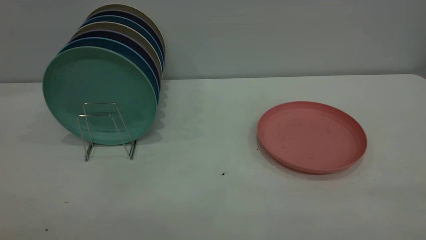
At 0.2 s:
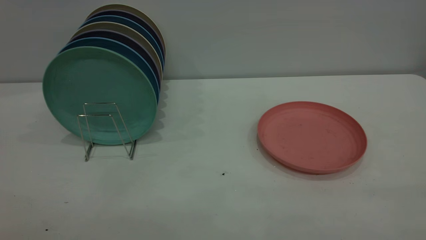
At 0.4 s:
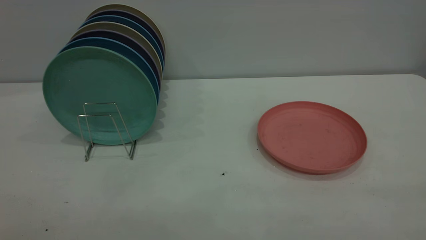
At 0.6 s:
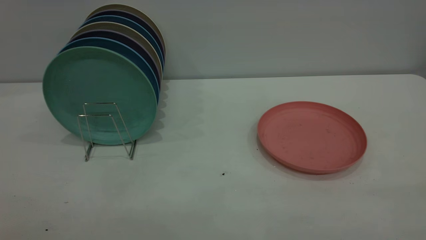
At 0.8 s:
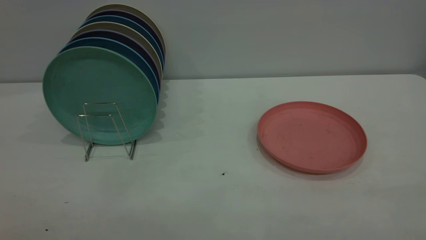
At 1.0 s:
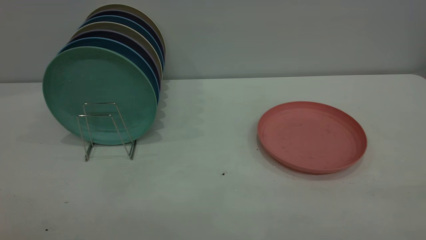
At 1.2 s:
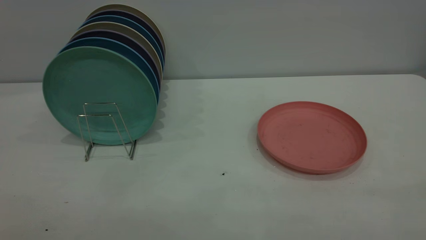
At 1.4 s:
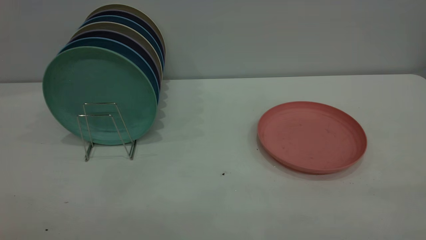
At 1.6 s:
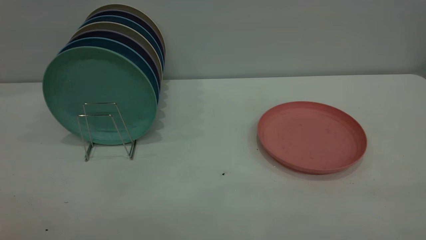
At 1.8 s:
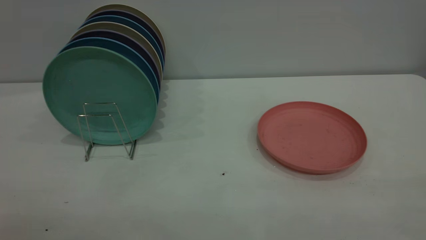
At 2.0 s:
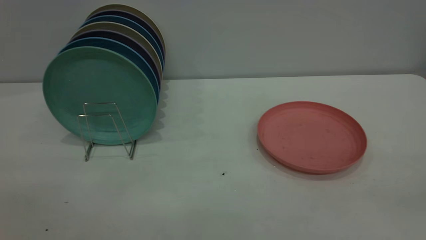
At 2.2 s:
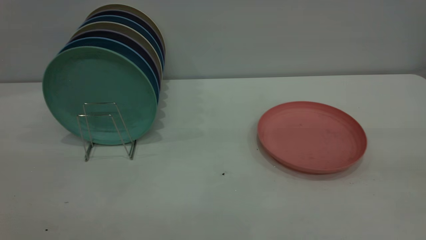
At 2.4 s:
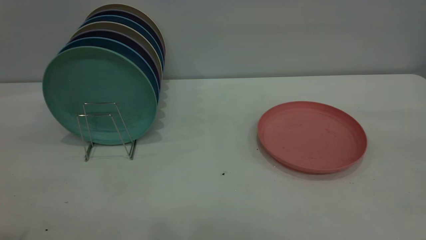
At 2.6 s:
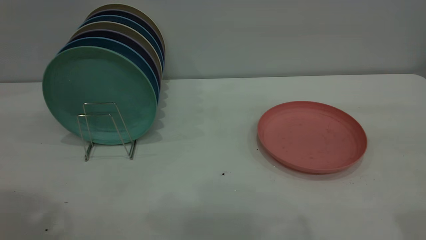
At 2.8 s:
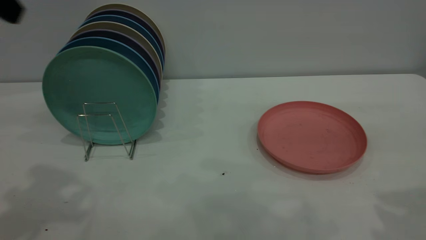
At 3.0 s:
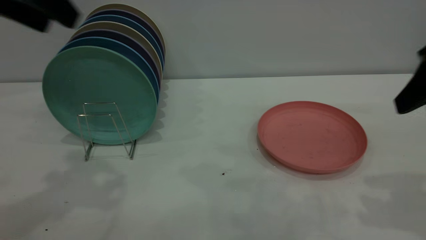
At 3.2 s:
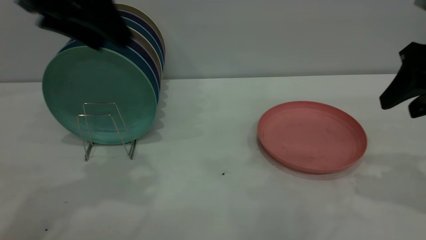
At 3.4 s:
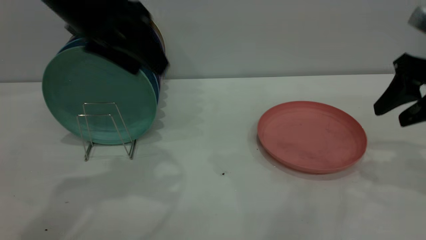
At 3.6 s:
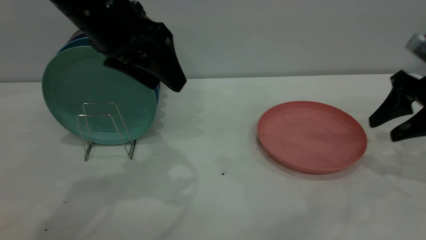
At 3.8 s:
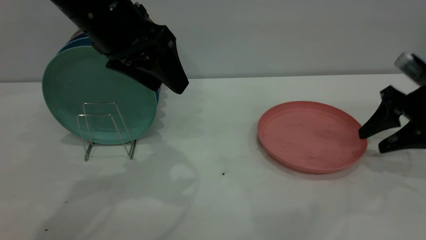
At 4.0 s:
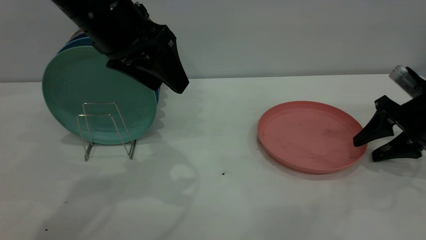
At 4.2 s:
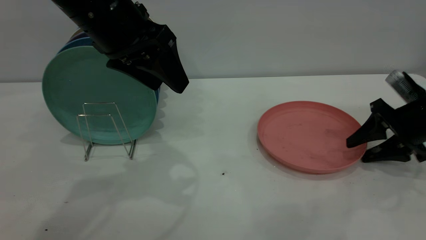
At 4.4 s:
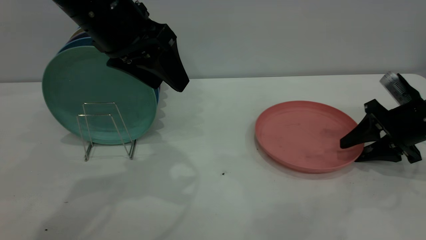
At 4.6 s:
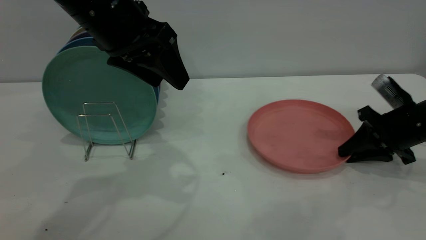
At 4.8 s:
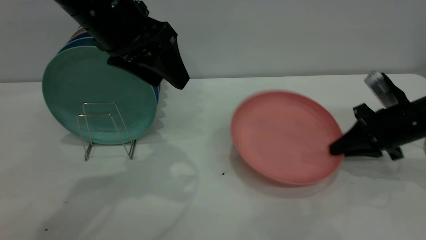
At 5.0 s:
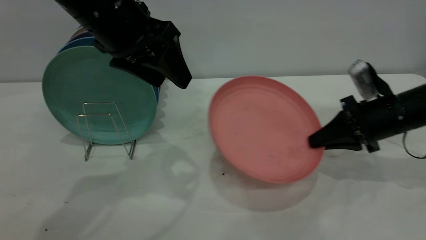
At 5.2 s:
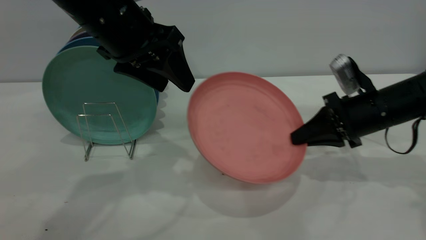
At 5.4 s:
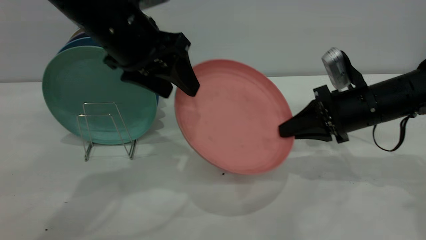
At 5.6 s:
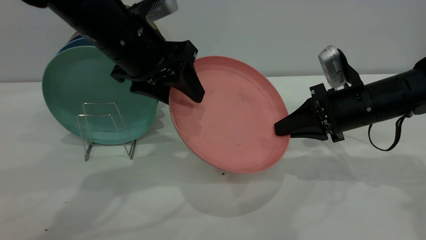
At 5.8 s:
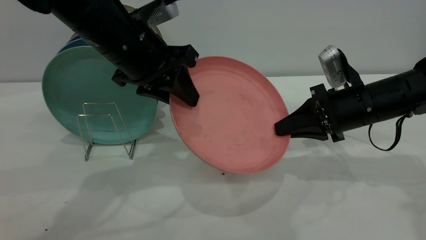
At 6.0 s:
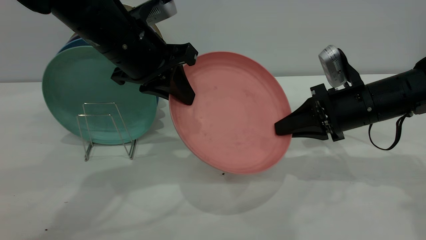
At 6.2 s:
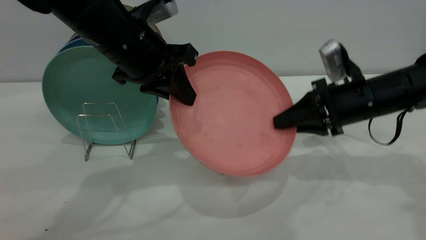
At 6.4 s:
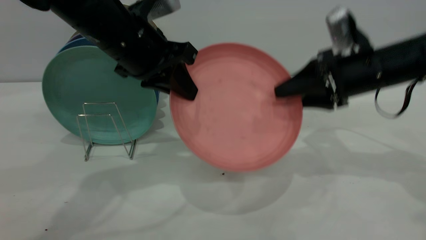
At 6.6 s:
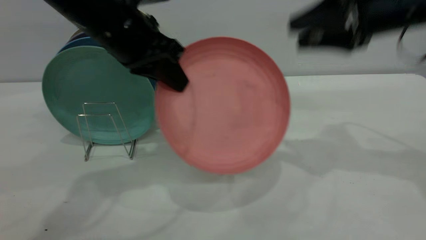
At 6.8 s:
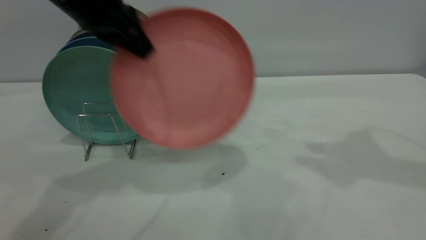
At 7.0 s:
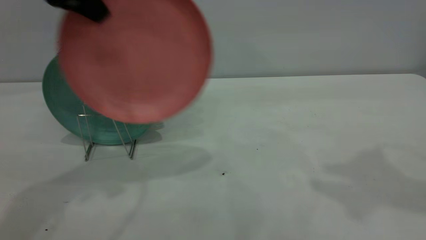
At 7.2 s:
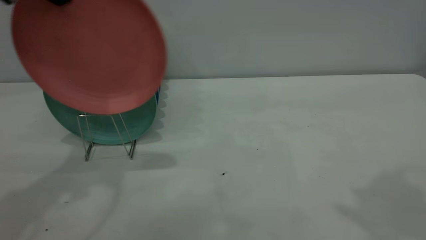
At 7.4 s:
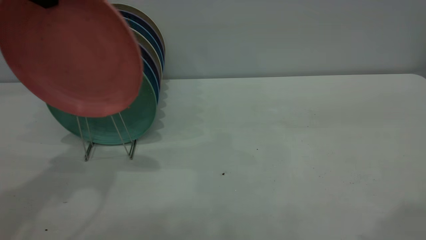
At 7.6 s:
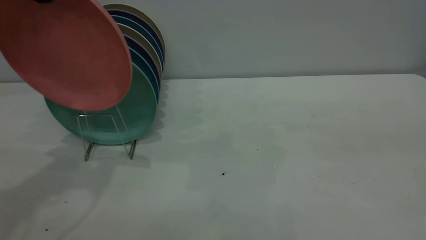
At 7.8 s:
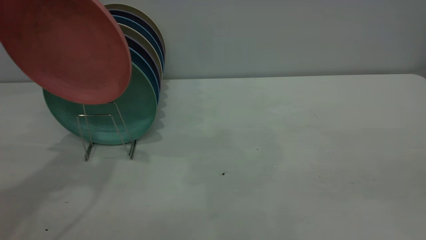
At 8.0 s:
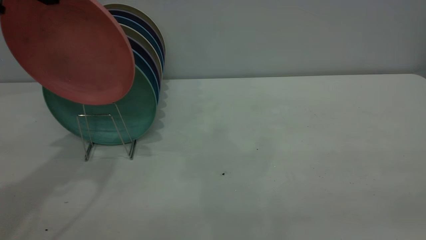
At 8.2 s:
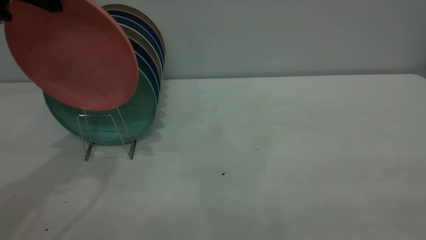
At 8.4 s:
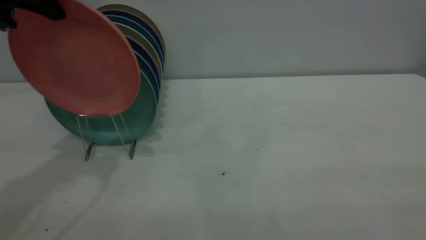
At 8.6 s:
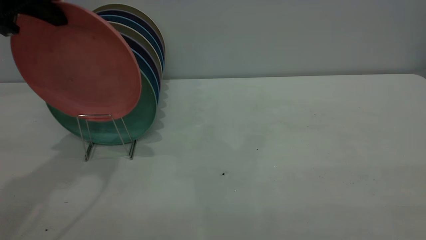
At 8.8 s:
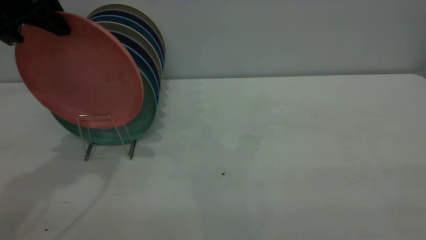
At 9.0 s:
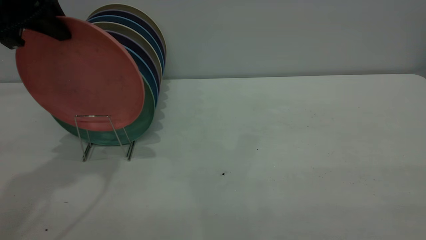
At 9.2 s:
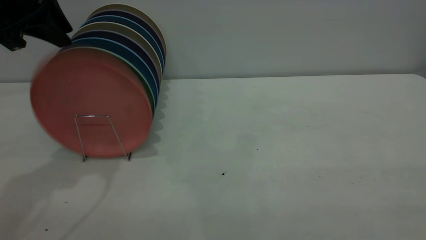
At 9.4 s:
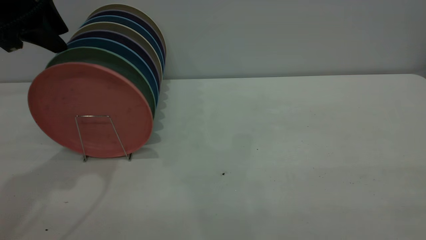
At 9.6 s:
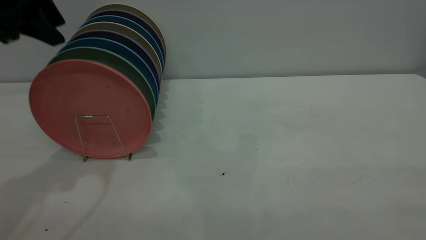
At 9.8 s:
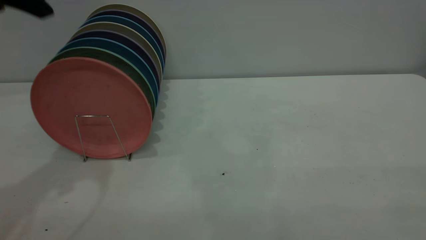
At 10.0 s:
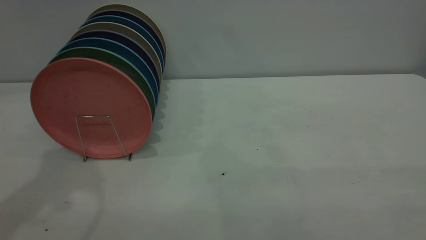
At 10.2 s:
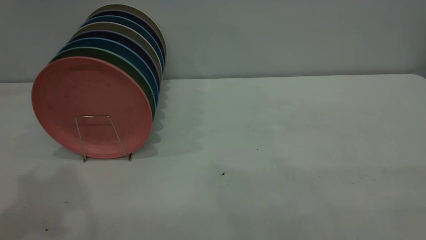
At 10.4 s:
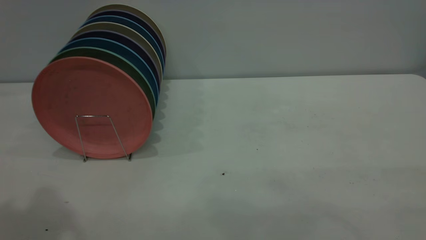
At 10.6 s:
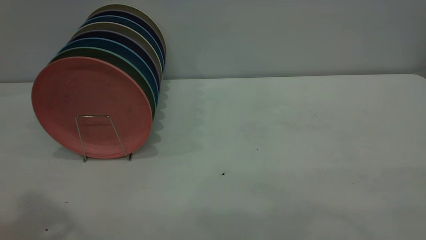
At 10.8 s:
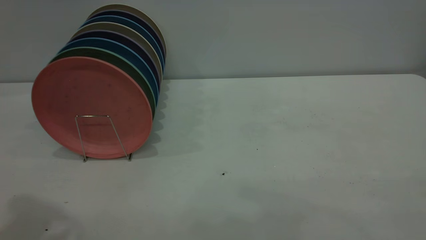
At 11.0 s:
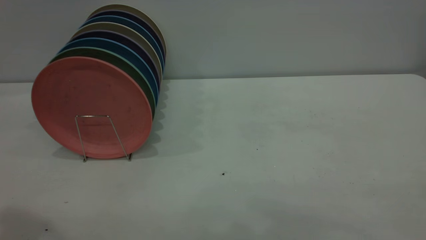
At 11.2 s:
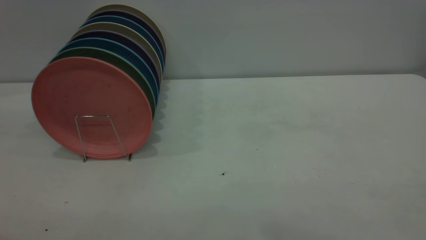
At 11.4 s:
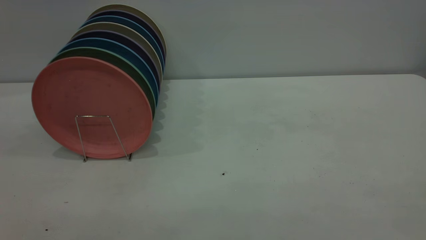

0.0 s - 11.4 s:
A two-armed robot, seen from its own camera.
Task of the whole recording: the right gripper grasp the pink plate, the right gripper pass the pink plate to the left gripper, and the left gripper place the pink plate on the plate rack.
Step, 0.0 s - 4.6 s: Pick up the plate with the right gripper.
Step, 5.0 s - 6.6 s: Pass the plate from the right gripper to the left gripper.
Step, 6.8 s - 9.8 s: Place the plate on the shelf.
0.0 s - 1.4 s: The two grippers keep their place.
2.8 s - 4.2 s: The left gripper shifts some 15 cm to the right, downward and forward. The right gripper goes about 25 cm downward and forward.
4.2 s - 5.6 s: The right gripper shifts roughly 10 cm to the left, and closes.
5.6 s - 7.2 s: The left gripper shifts about 20 cm upward and to the left, and closes; the right gripper travels upward and backward by roughly 35 cm, and opens.
7.2 s - 8.6 s: The left gripper changes place by some 5 cm, while the right gripper goes about 25 cm backward and downward.
8.6 s - 10.0 s: The left gripper shifts approximately 10 cm upward and backward, and opens.

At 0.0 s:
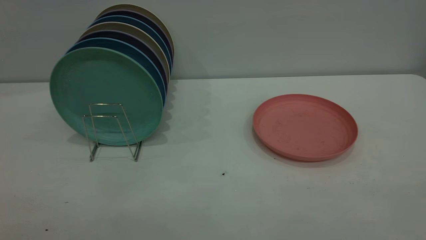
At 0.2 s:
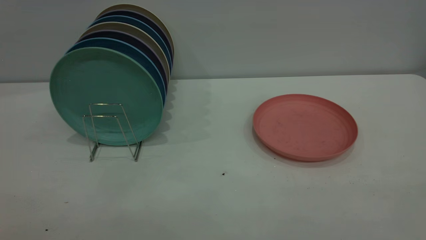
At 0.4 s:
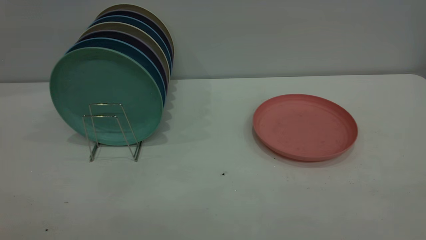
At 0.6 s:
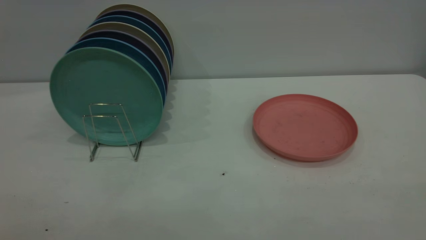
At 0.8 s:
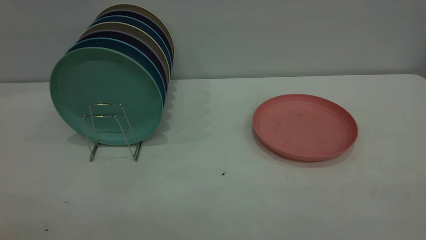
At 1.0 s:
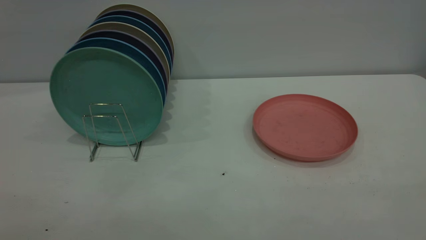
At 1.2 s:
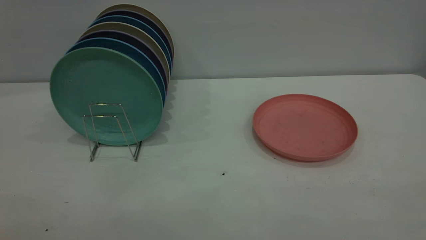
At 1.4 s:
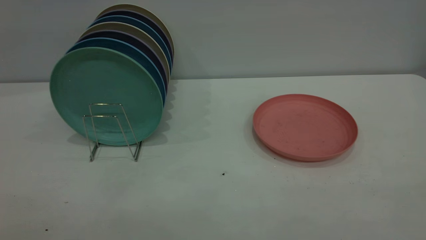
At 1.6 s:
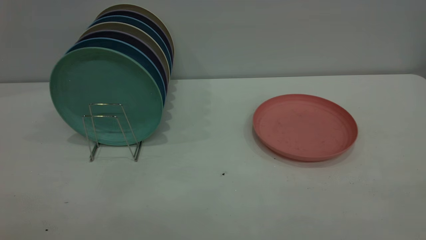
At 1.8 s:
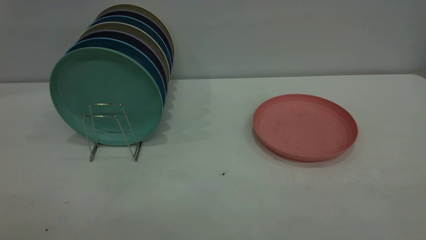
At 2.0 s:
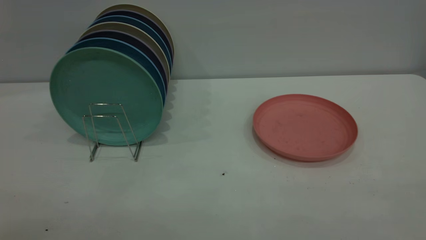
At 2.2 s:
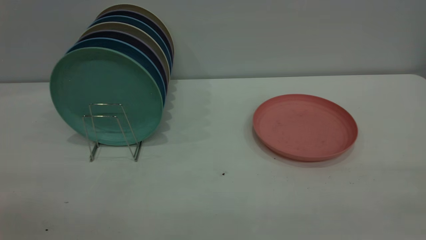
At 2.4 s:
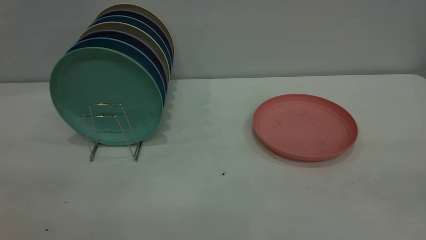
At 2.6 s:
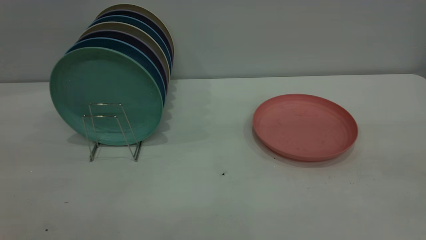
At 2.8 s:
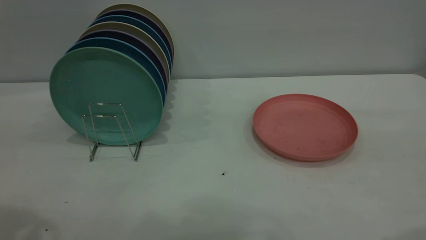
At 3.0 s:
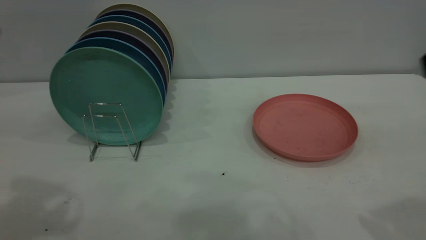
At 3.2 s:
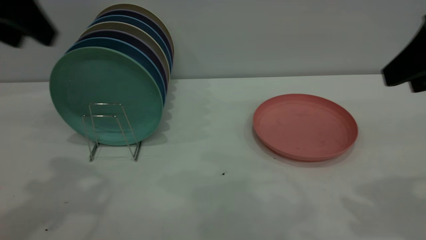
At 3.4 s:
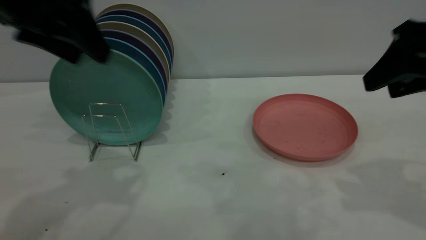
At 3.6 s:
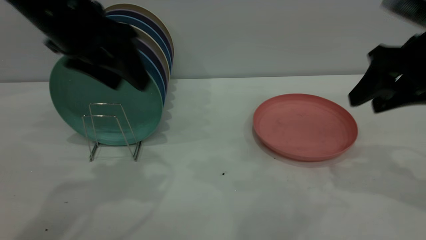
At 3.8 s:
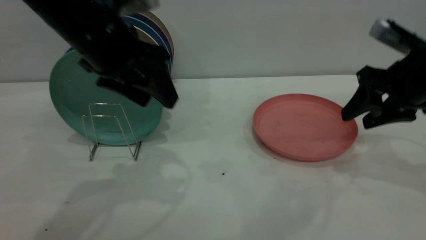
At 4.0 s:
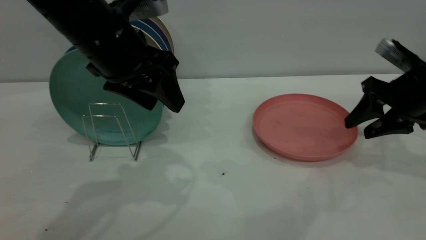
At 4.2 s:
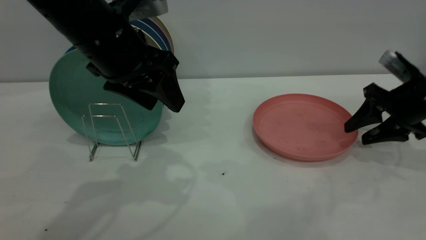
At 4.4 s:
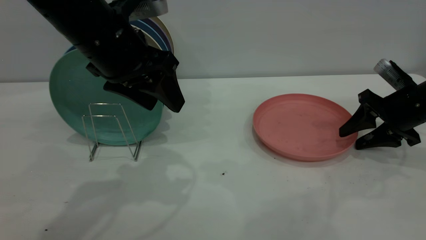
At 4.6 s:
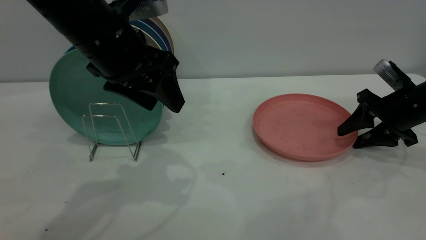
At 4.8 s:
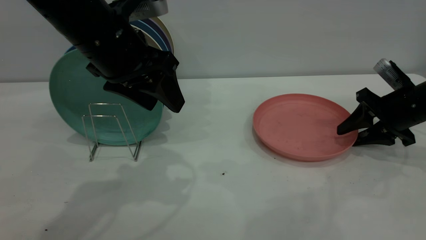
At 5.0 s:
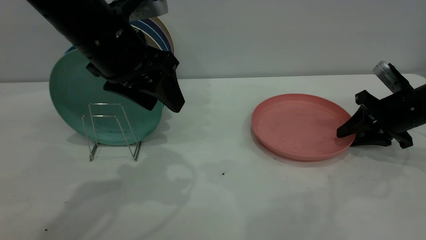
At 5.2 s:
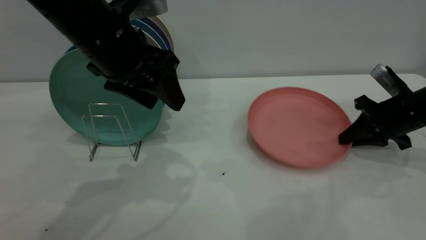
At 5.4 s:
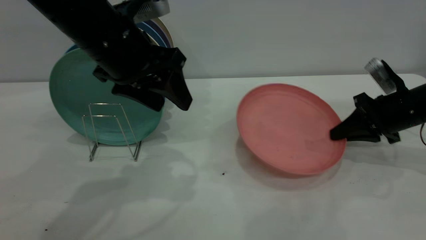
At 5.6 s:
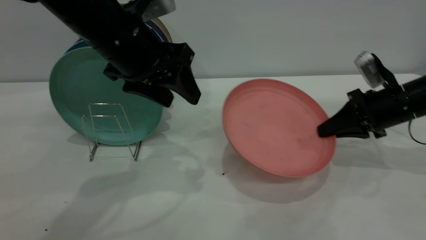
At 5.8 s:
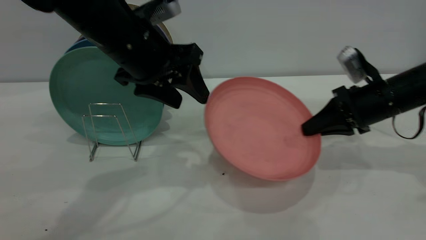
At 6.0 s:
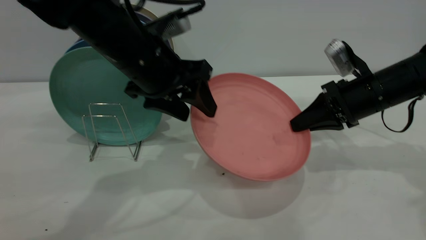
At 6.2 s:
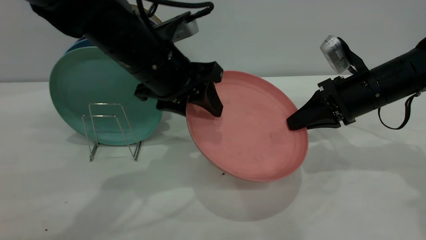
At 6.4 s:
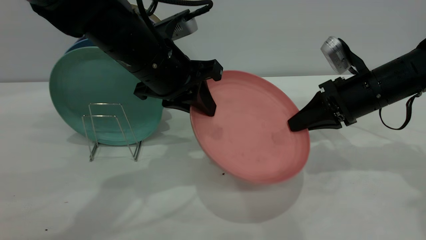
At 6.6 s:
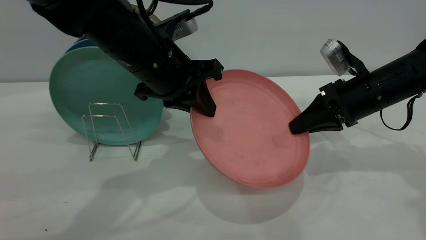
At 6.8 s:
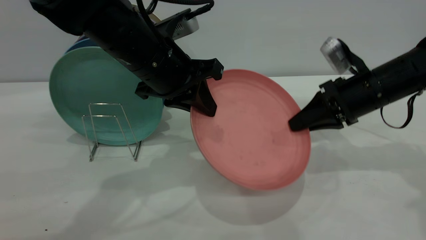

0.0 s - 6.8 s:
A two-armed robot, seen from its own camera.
Task of the whole recording: the right gripper grasp the pink plate, the right gripper pass the pink plate to the left gripper, and the left gripper place the pink plate on the plate rack.
Step, 0.0 s - 5.6 s: Pick up the plate with the right gripper.
0.0 s - 1.4 s: Both grippers stay about where they are.
2.8 s - 4.0 s: The left gripper travels to the right, downward and forward by roughly 25 cm, while the right gripper is displaced forward and downward by roughly 30 cm.
4.0 s - 5.4 s: The right gripper changes place by roughly 5 cm, and closes its fingers.
5.4 s - 6.8 s: The left gripper changes place by some 5 cm, and closes its fingers. Meanwhile the right gripper is displaced to the left by roughly 5 cm.
